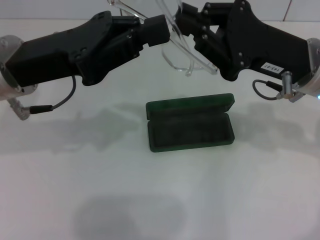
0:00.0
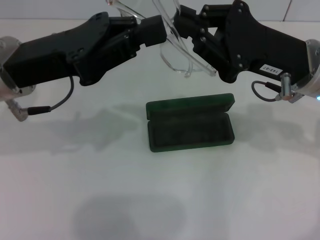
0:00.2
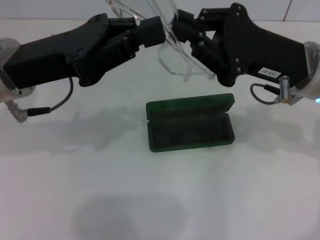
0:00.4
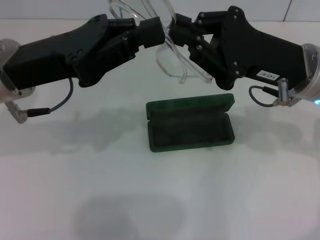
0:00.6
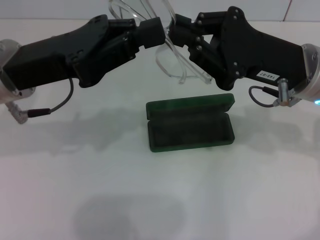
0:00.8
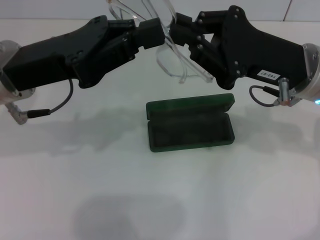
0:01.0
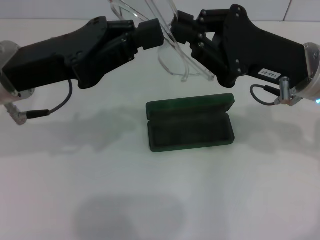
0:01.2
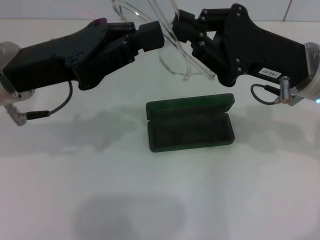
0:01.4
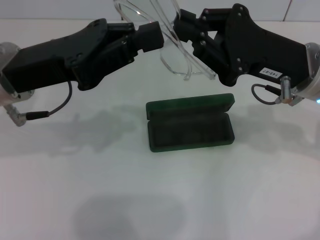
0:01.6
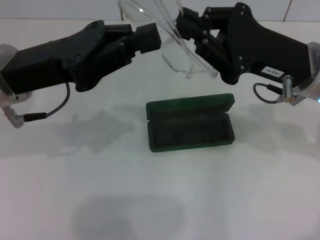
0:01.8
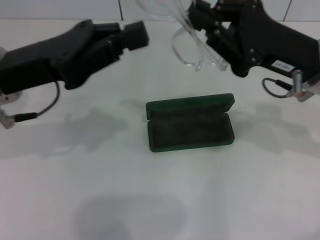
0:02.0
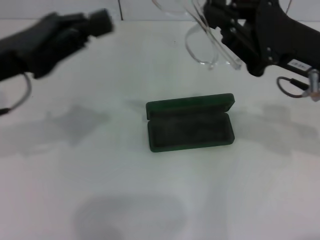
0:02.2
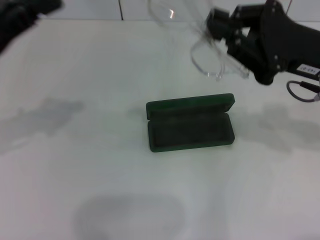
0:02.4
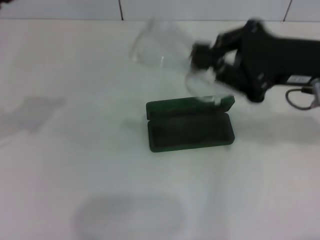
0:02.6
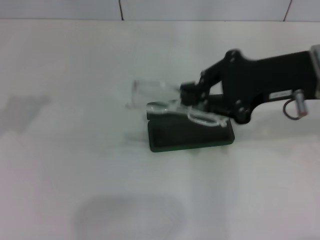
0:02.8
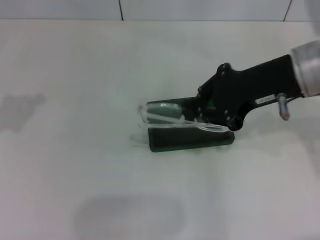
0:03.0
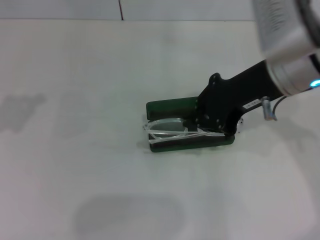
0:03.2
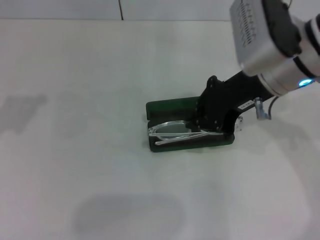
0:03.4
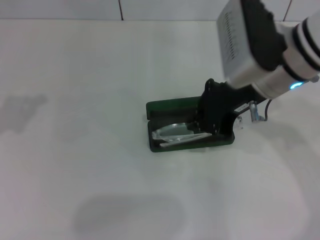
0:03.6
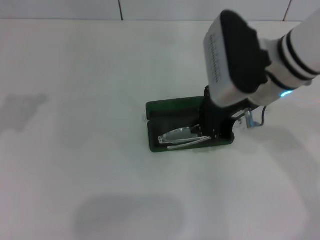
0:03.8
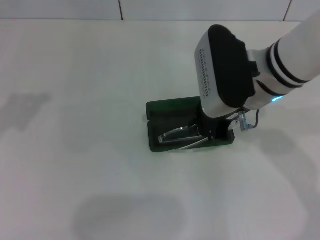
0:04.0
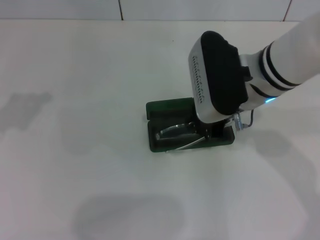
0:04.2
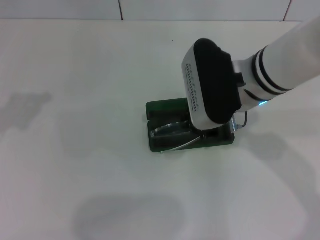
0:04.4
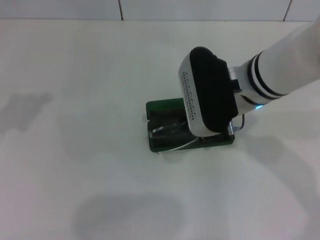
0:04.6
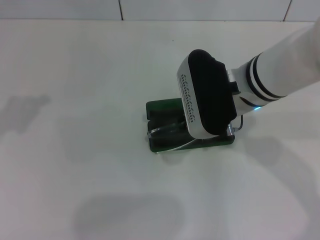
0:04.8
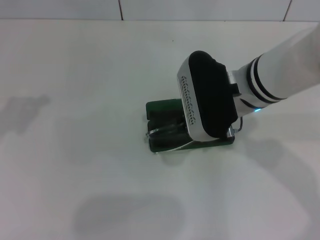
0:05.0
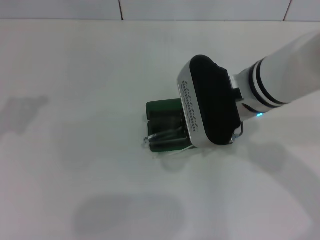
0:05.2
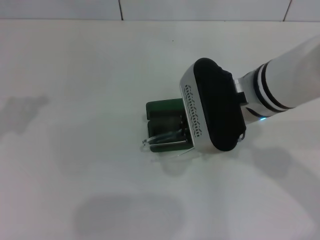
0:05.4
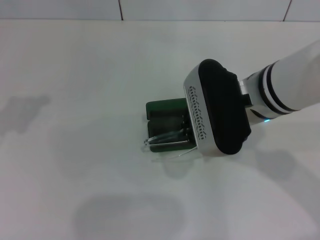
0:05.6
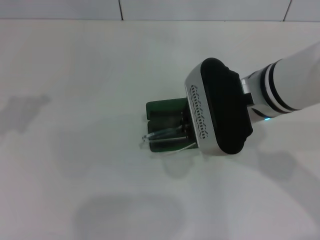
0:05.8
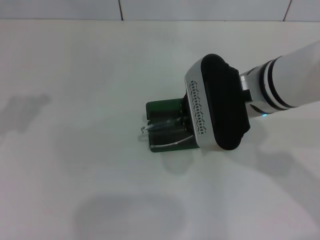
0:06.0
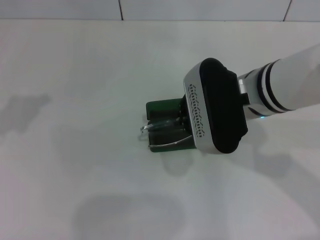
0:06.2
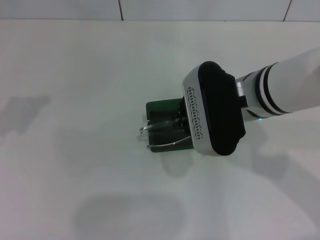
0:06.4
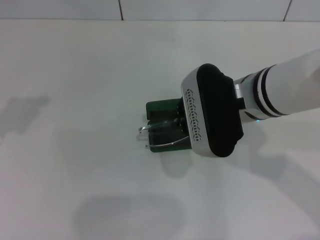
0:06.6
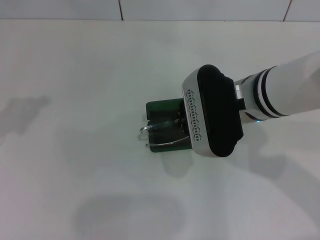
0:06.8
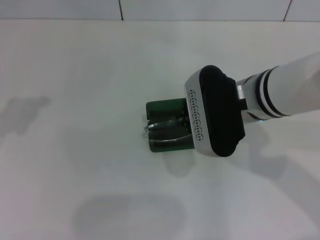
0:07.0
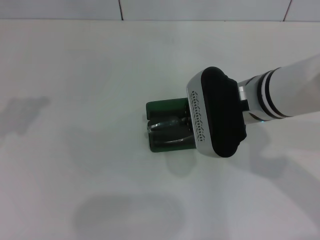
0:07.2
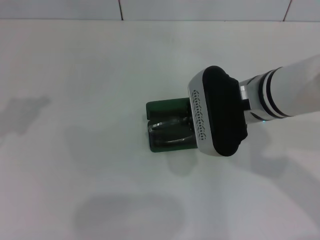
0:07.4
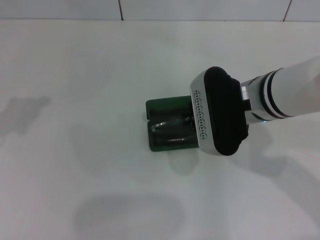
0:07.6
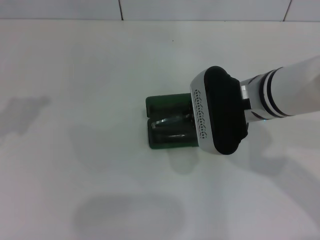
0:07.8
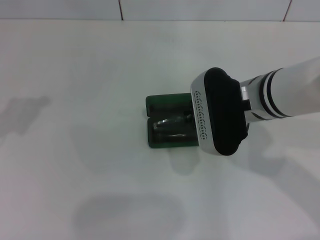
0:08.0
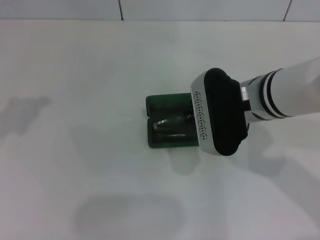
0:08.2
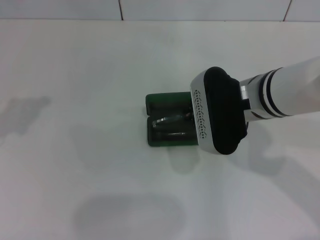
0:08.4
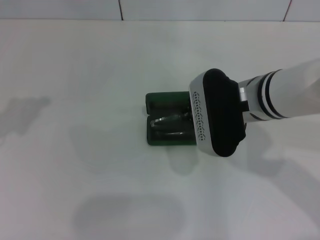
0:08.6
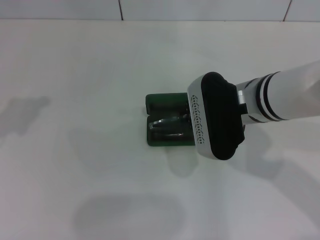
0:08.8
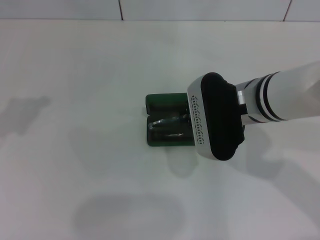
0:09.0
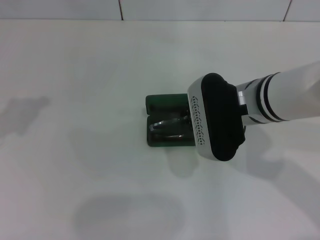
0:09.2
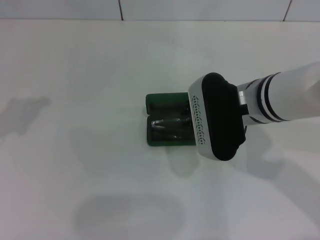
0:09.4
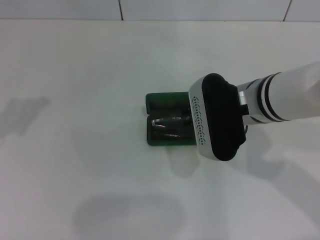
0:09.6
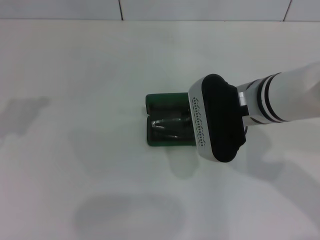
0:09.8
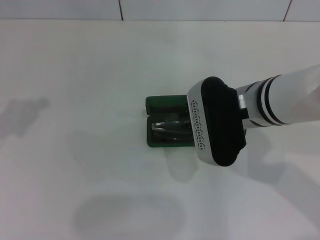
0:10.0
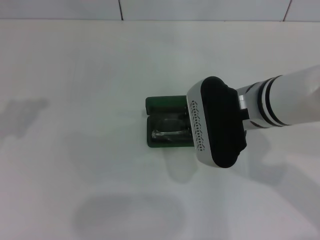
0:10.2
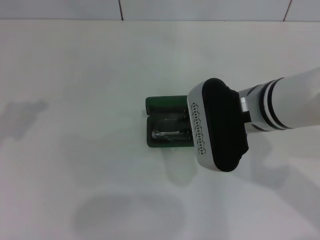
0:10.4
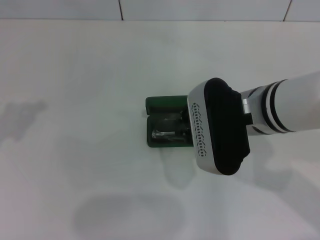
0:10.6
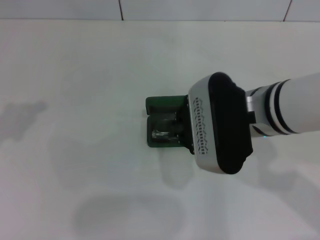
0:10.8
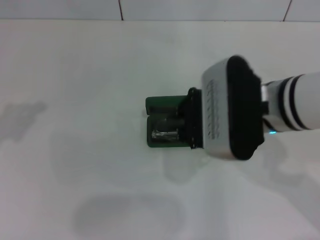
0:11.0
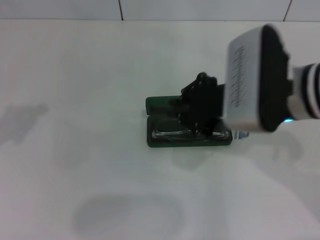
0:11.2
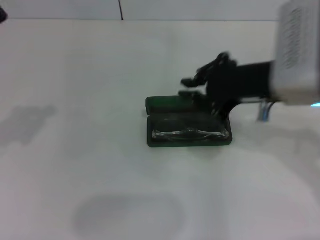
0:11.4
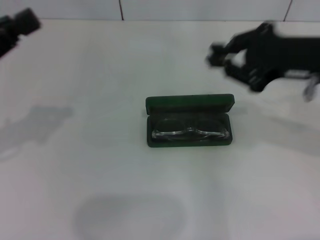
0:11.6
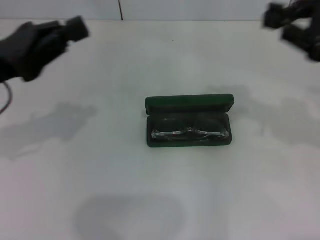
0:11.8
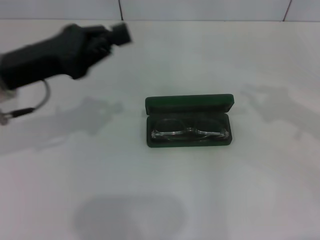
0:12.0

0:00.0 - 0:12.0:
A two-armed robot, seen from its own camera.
Step, 0:01.4 - 0:10.4: Put the glasses into the case with your right hand.
0:00.0 - 0:01.6: Neither gripper changes place.
0:01.6 - 0:03.0: The left gripper goes approximately 15 cm to the left. The right gripper shifts roughly 5 cm upward.
0:03.0 - 0:04.4: The right gripper heads to the left, covering roughly 10 cm.
0:04.4 - 0:07.6: There are only small adjustments of the grippers.
0:07.6 - 0:09.0: The two grippers keep their place.
0:09.0 - 0:10.4: The grippers move only a little.
0:10.4 - 0:12.0: The left gripper travels to the right and forward by about 10 cm. Meanwhile the right gripper moves to the right, about 25 cm.

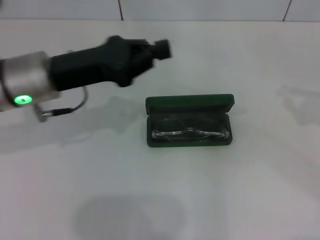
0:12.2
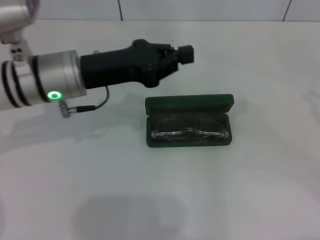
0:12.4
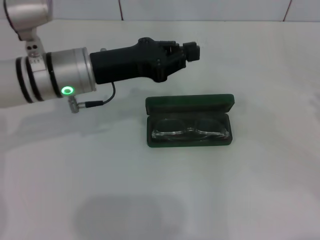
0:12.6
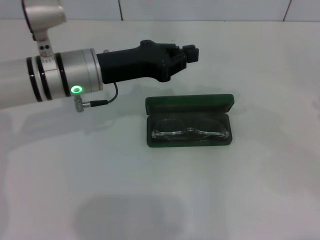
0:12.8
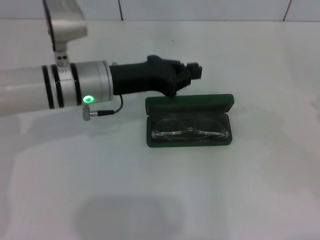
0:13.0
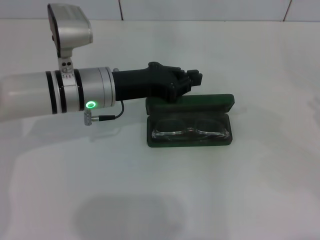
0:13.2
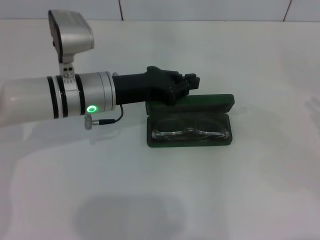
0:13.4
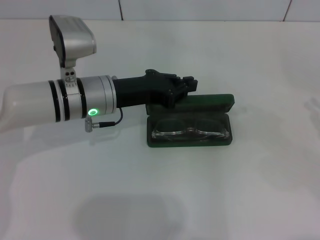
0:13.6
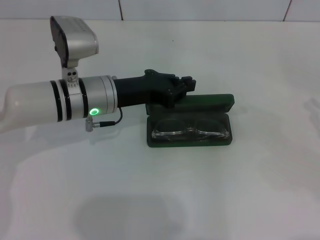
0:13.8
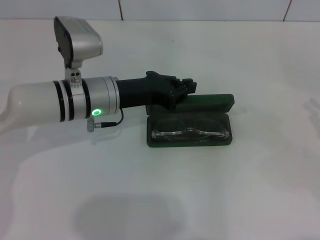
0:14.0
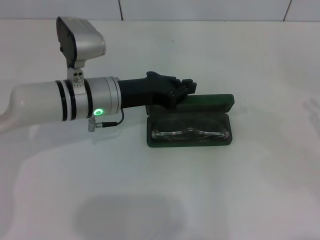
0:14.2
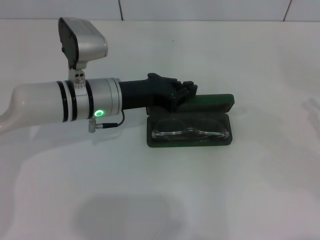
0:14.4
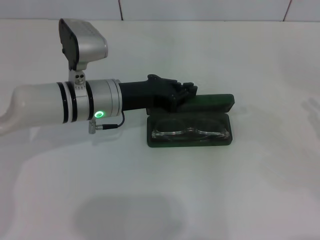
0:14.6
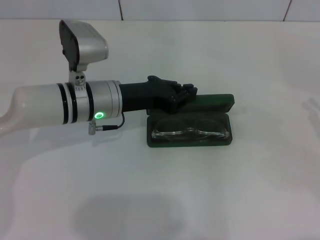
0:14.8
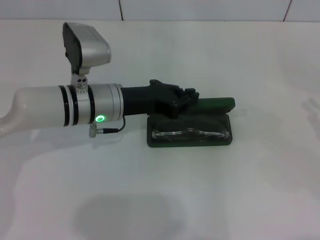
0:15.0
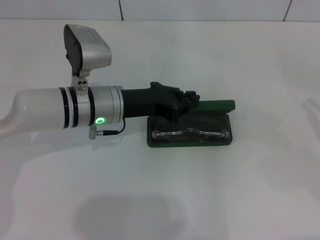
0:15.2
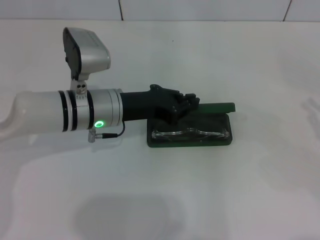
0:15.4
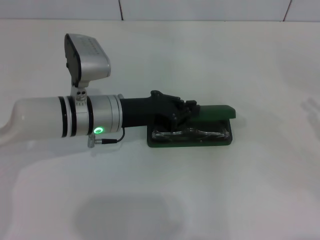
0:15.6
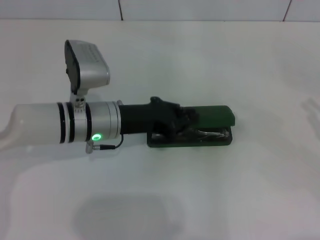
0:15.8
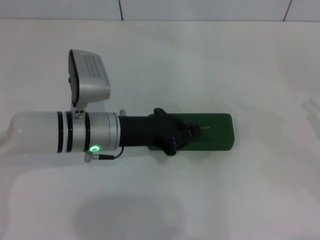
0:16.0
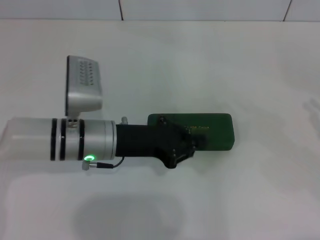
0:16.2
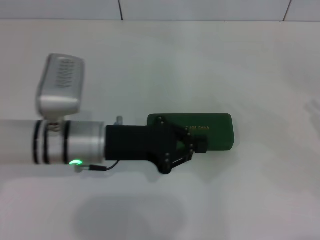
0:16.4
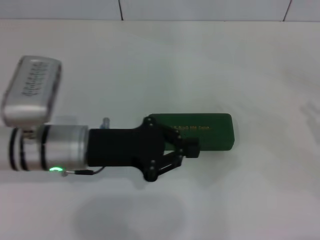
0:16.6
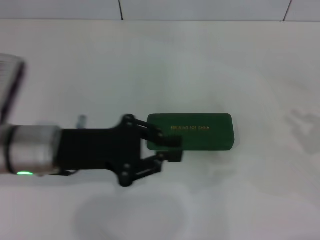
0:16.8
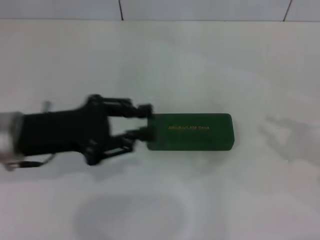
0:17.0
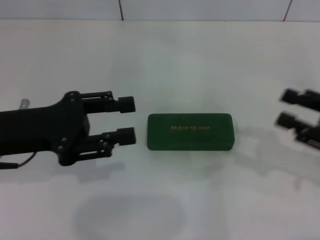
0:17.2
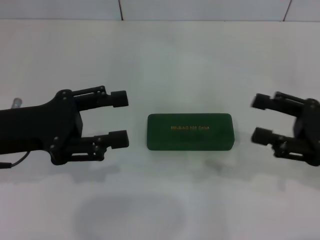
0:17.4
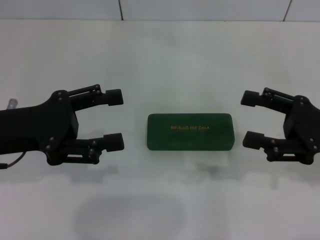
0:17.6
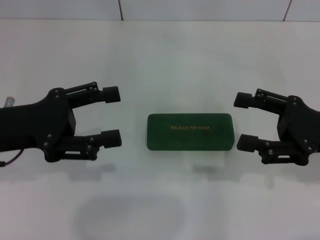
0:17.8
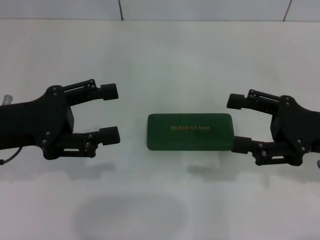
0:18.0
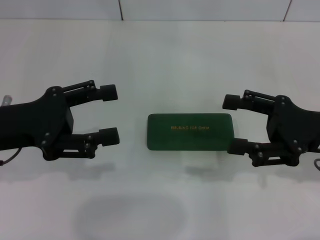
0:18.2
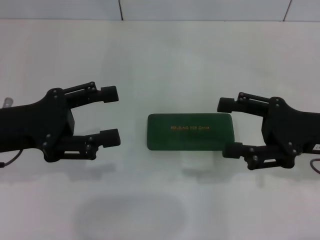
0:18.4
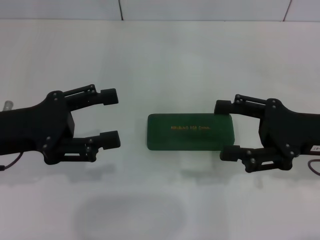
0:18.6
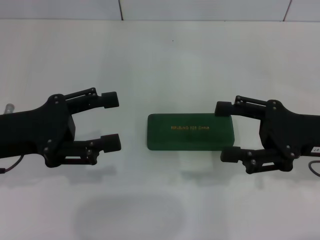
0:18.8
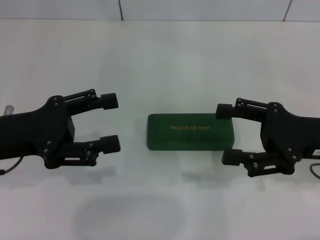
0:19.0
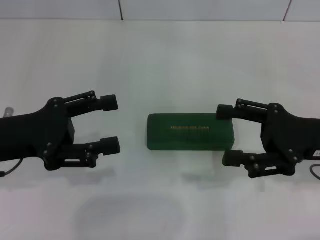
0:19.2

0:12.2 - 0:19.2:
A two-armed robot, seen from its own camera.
Step, 0:12.2 - 0:16.2: Close the glasses case with your left hand.
0:12.2 - 0:13.6: The right gripper moves downward, approximately 5 cm, while the left gripper goes roughly 10 cm downward and to the right.
0:13.6 - 0:15.0: Neither gripper changes place.
0:15.0 - 0:16.4: The left gripper heads backward, covering approximately 5 cm.
0:16.4 - 0:17.8: The left gripper goes about 15 cm to the left and upward, and opens up; the right gripper goes approximately 15 cm to the left, and opens its fingers.
0:17.8 - 0:19.2: The grippers move only a little.

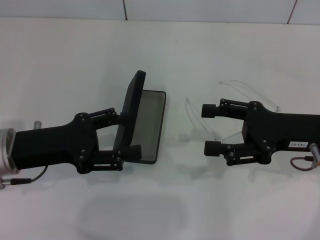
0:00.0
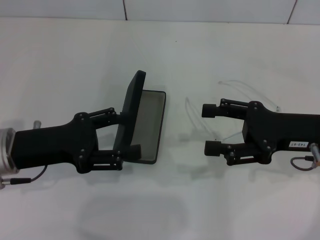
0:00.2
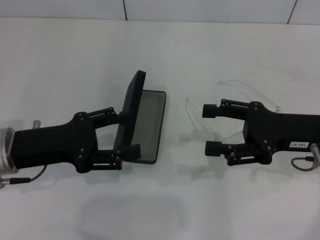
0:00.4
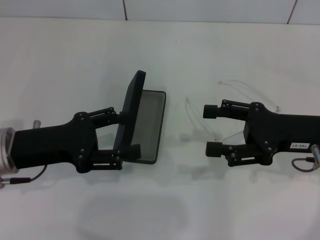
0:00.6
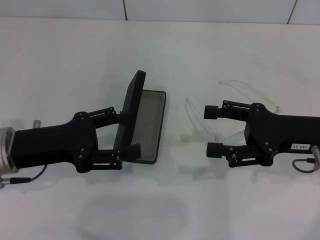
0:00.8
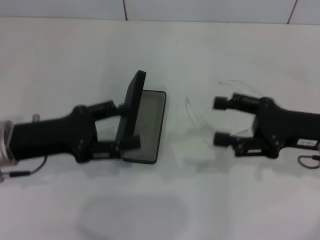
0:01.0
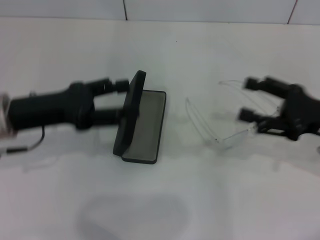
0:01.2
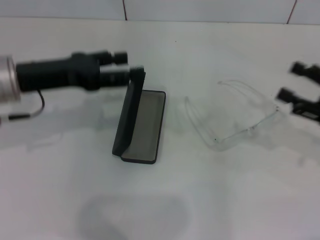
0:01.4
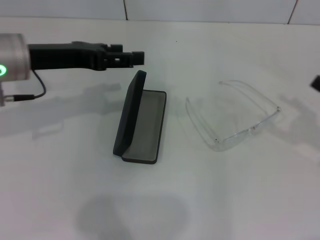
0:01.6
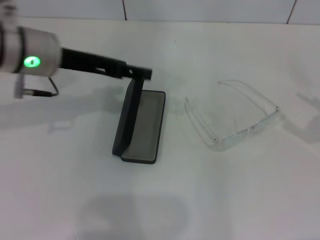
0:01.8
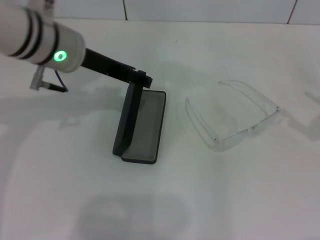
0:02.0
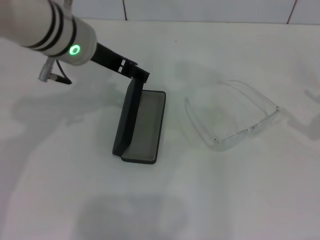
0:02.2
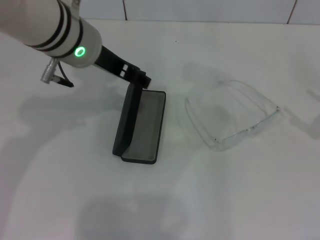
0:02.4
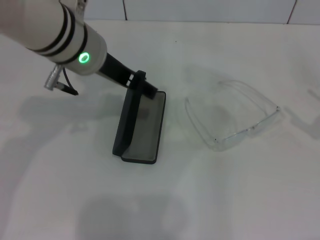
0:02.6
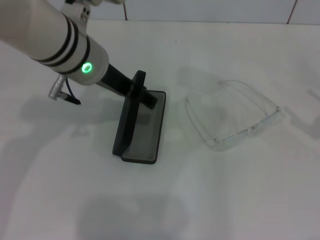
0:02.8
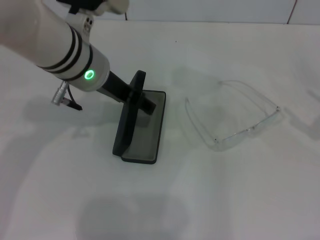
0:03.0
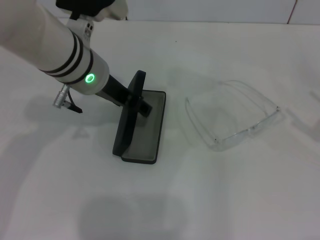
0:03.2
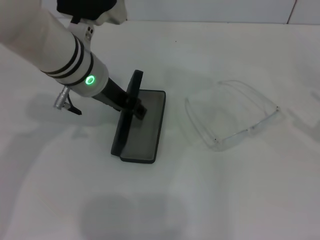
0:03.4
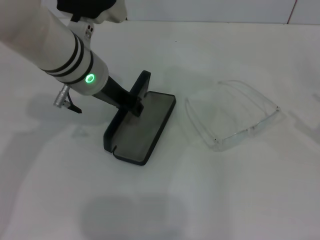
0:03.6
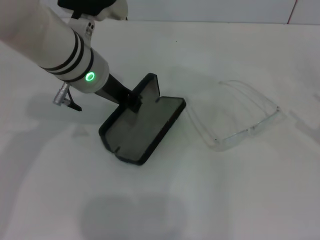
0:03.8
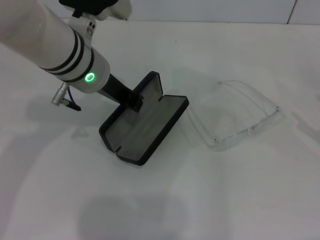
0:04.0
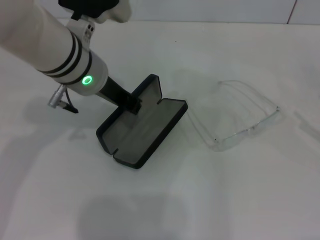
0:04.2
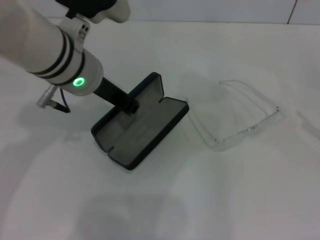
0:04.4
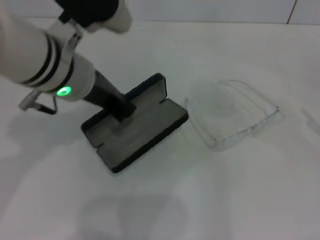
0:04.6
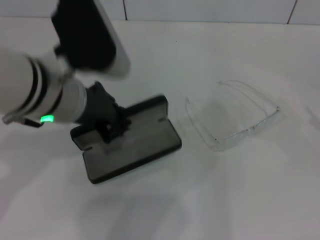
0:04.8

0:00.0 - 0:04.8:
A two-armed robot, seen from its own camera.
Step, 0:00.0 - 0:03.8: Grab the glasses case with your left hand.
0:00.0 - 0:01.6: The right gripper travels to the right by approximately 10 cm; the left gripper goes some 10 cm upward and forward.
0:01.6 - 0:03.2: The left gripper moves to the right, approximately 10 cm.
0:03.2 - 0:04.8: The left gripper moves backward, about 5 cm, and closes its fingers.
